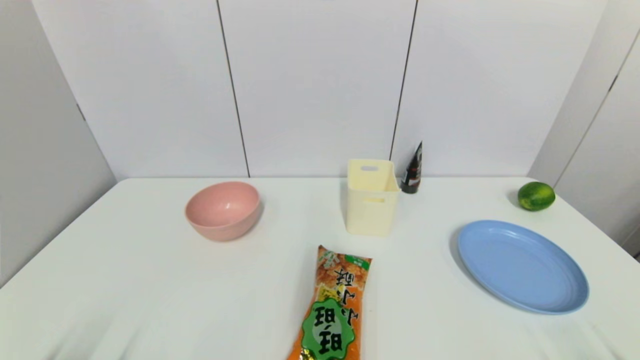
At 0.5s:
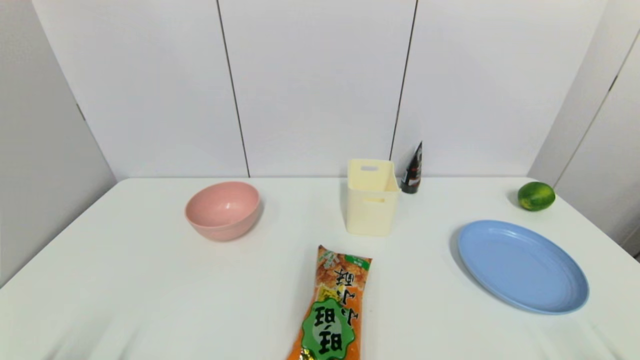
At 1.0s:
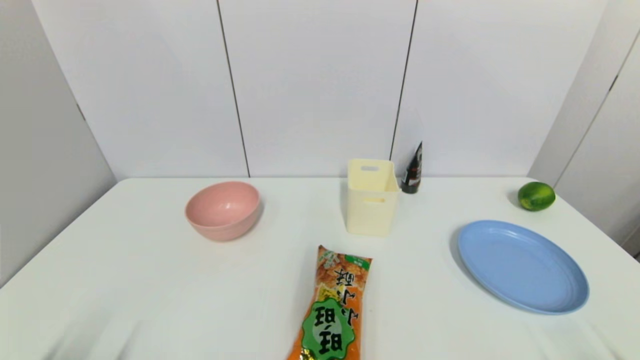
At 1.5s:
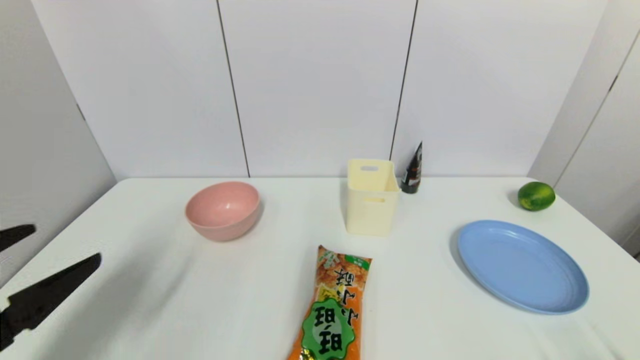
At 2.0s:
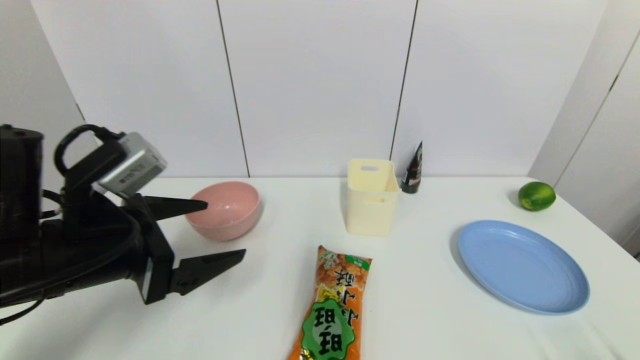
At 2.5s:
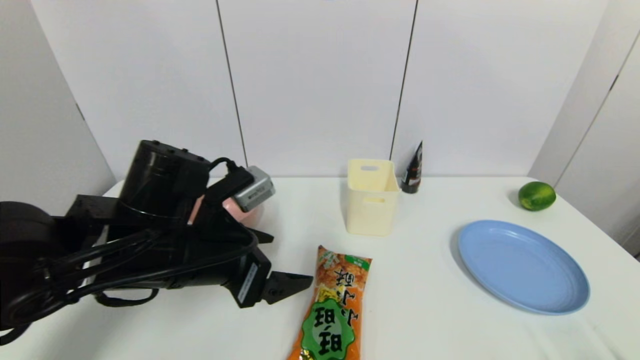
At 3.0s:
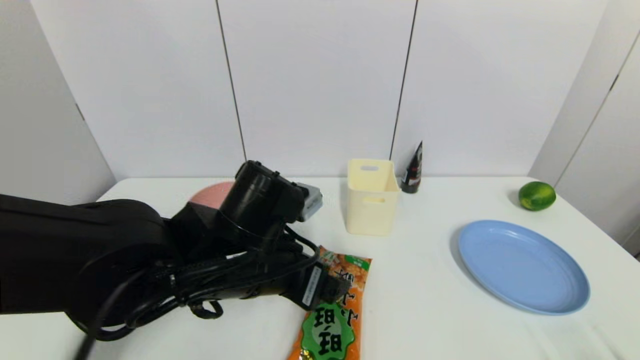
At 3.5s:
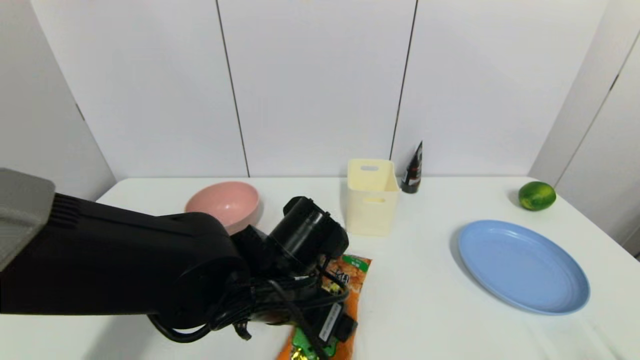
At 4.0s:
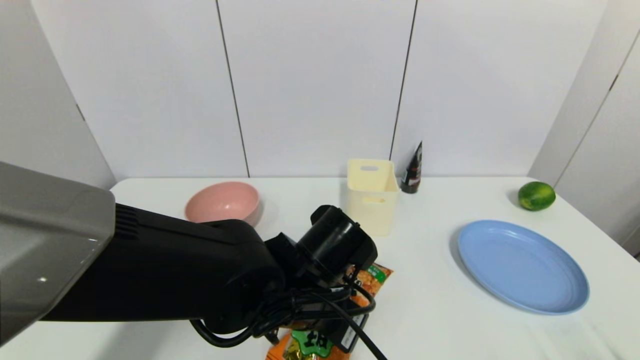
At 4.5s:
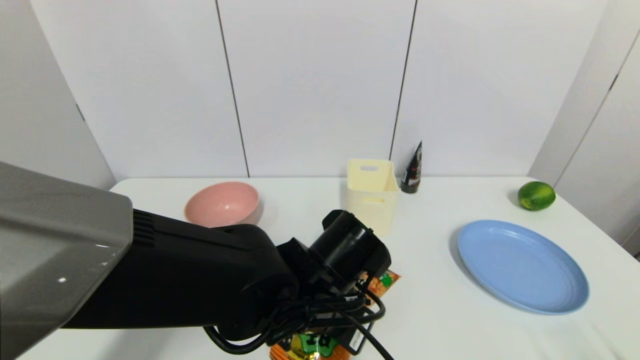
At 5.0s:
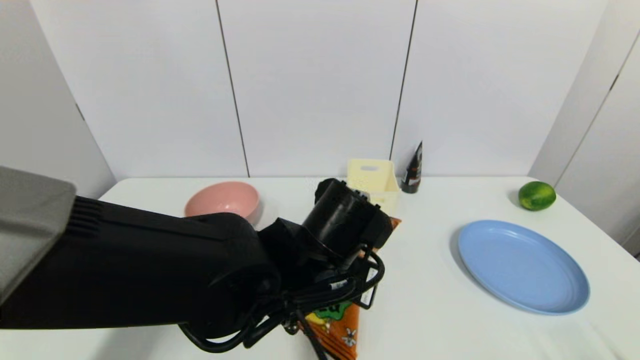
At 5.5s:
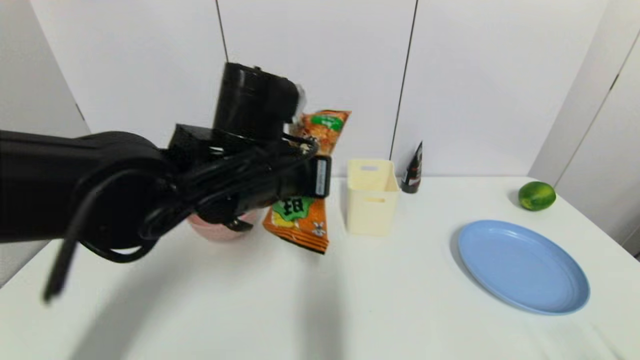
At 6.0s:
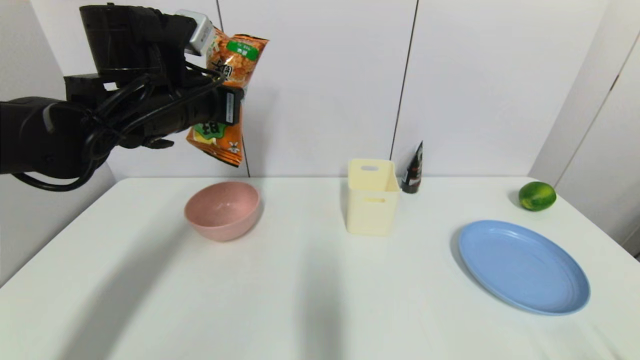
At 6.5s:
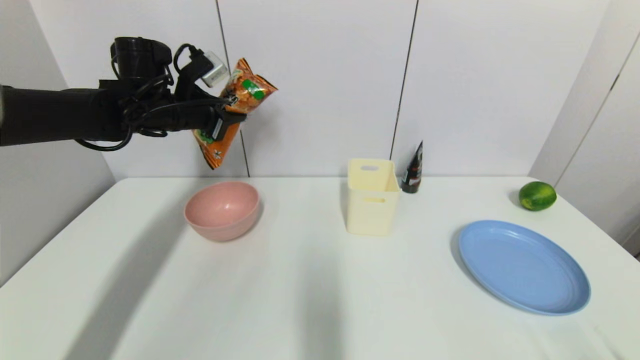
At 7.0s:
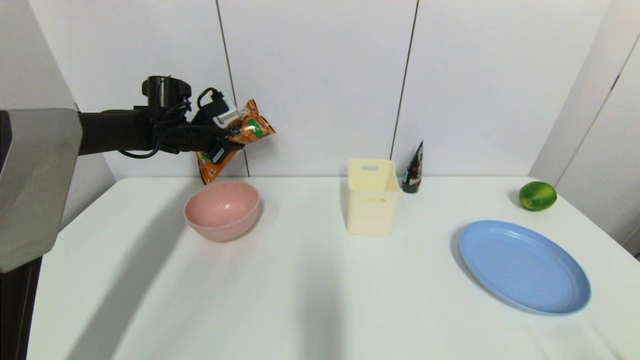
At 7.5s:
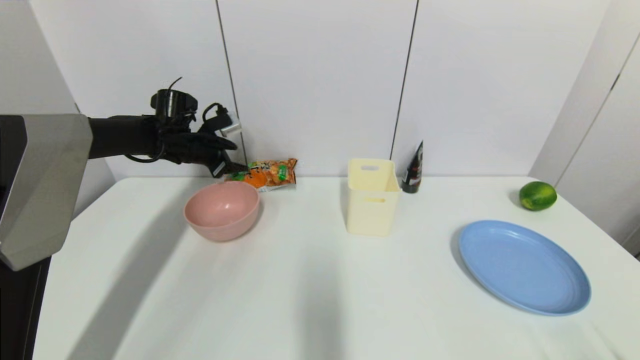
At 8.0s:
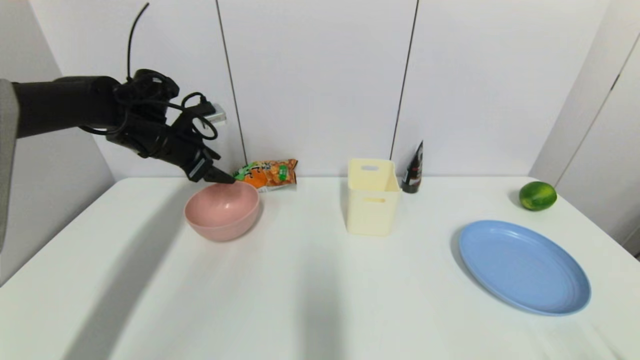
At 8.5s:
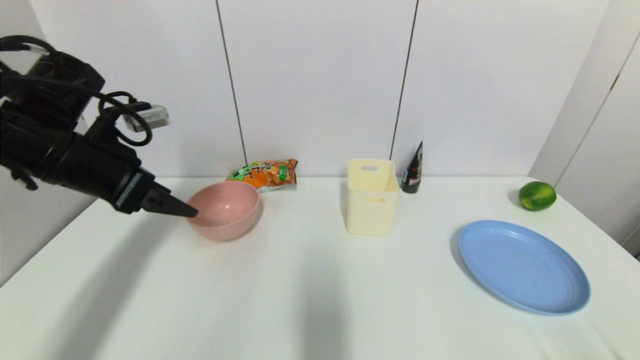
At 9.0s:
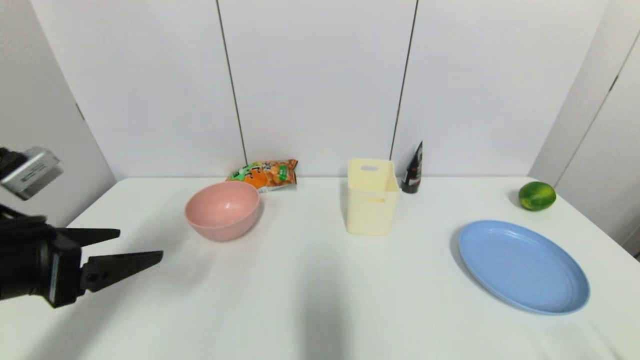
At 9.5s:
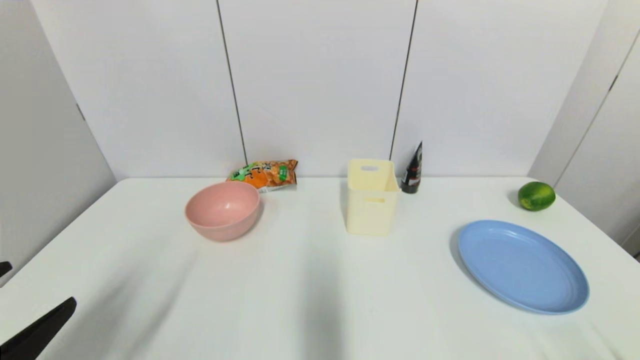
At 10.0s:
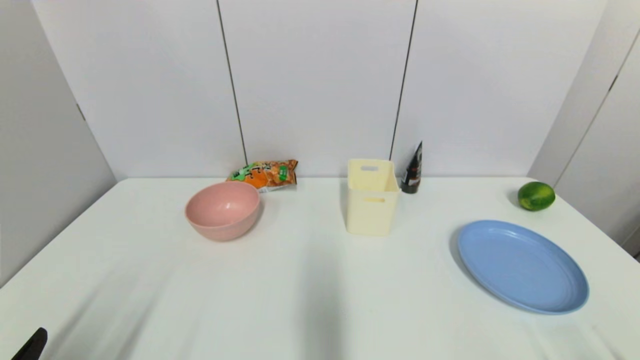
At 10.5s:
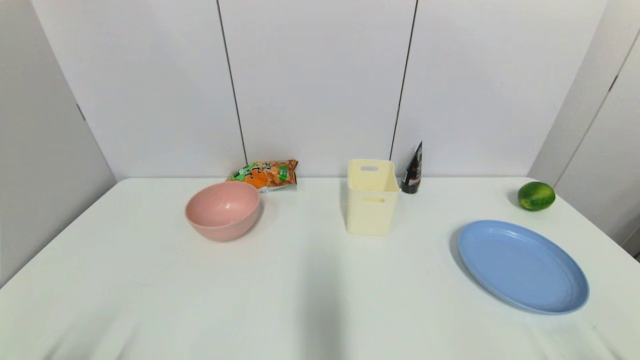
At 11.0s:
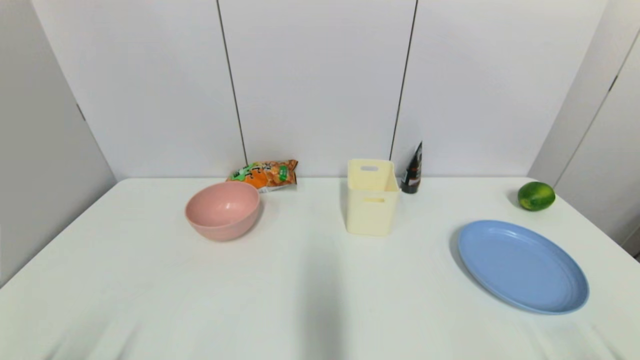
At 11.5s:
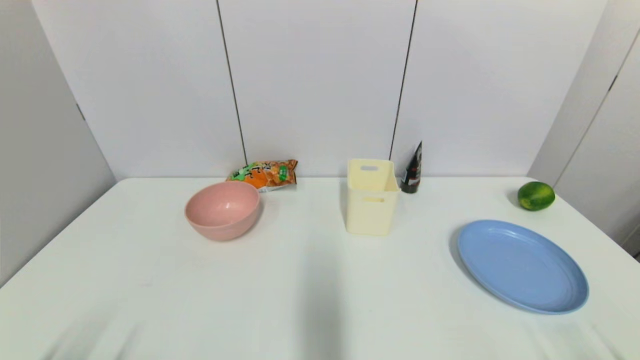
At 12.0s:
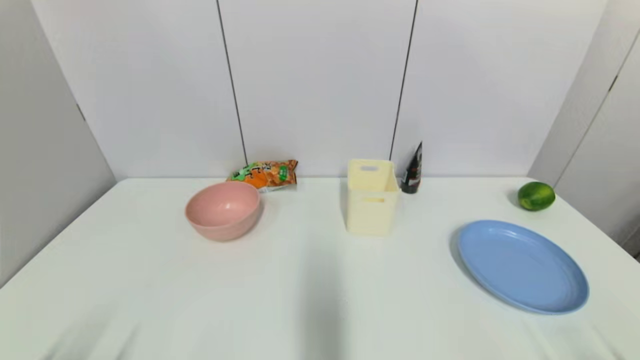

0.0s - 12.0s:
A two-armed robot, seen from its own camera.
Step, 1.5s - 4.5s: Grasp the cookie with left gripper.
Step, 5.0s - 7.0s: Place the cookie on the table with left gripper.
0.0s - 2.0s: The left gripper travels forward, upward and to the right by some 25 cm.
2.0s - 4.0s: The left gripper shifts about 20 cm to the right and downward, and closes.
4.0s - 6.0s: The left gripper moves upward, to the left and forward, some 25 cm, and closes up.
6.0s - 8.0s: The left gripper travels to the left, forward and downward by about 15 cm, and opens up.
8.0s - 10.0s: The left gripper moves backward, roughly 40 cm.
10.0s - 12.0s: The left gripper changes place by roughly 5 cm.
